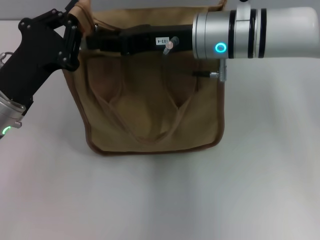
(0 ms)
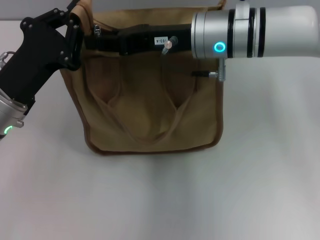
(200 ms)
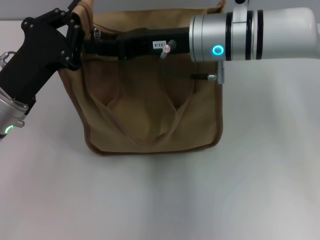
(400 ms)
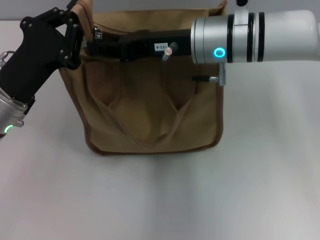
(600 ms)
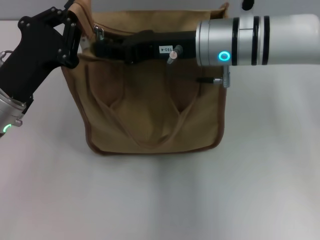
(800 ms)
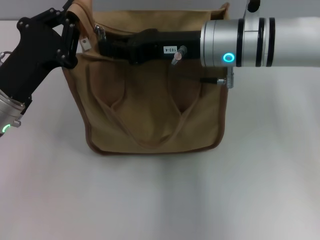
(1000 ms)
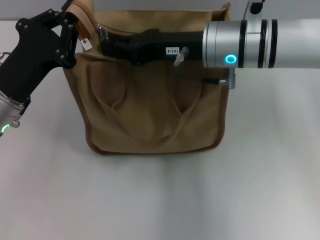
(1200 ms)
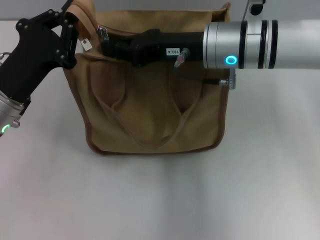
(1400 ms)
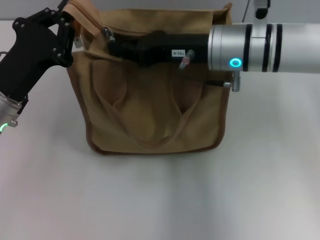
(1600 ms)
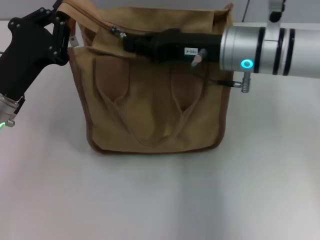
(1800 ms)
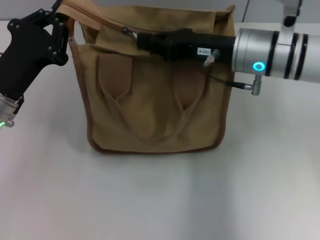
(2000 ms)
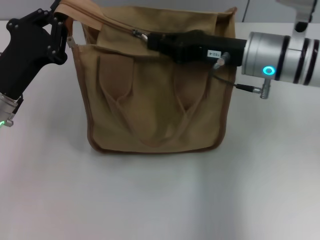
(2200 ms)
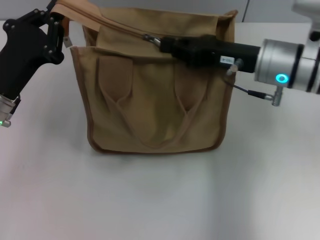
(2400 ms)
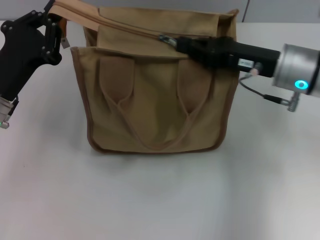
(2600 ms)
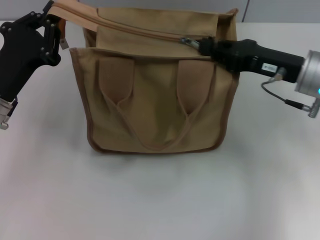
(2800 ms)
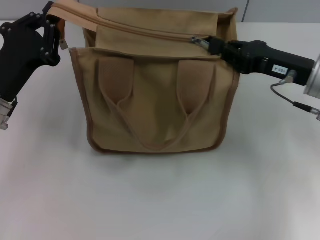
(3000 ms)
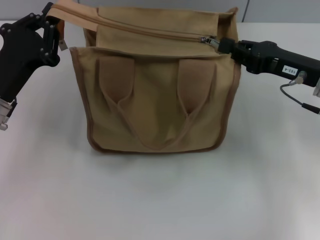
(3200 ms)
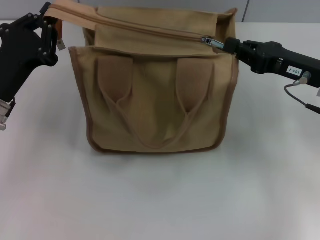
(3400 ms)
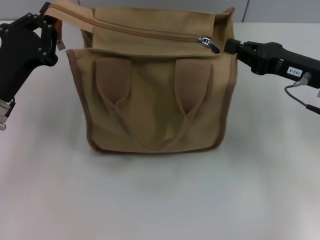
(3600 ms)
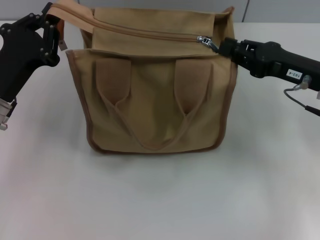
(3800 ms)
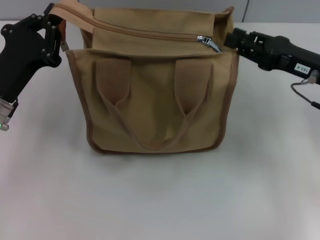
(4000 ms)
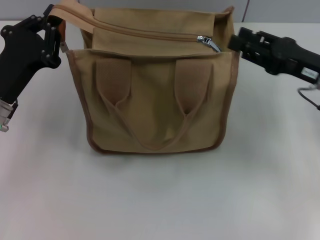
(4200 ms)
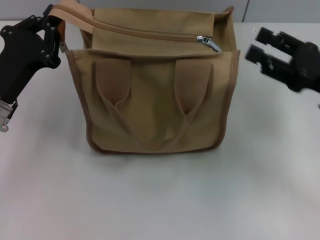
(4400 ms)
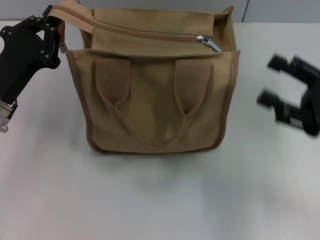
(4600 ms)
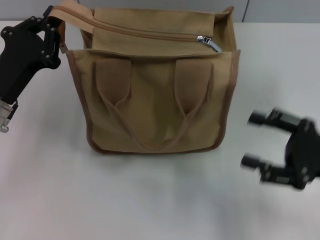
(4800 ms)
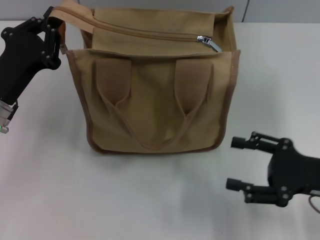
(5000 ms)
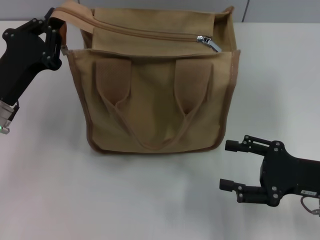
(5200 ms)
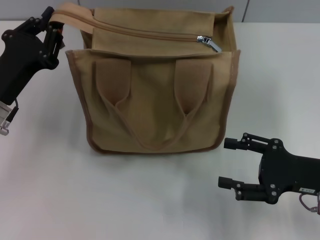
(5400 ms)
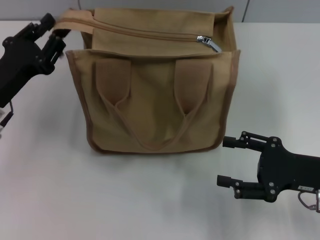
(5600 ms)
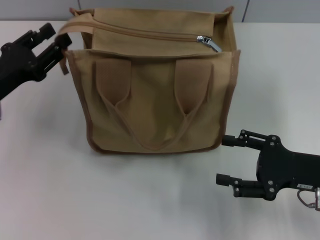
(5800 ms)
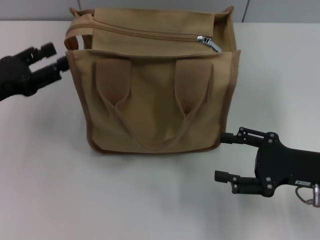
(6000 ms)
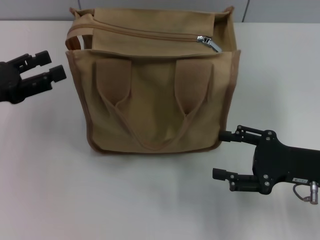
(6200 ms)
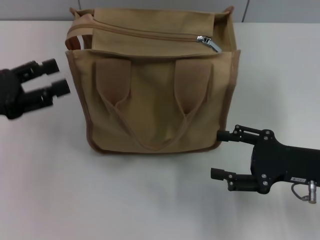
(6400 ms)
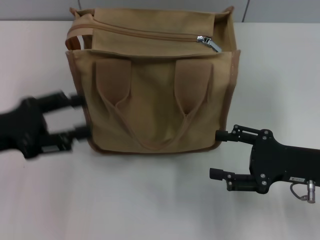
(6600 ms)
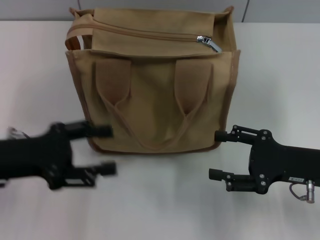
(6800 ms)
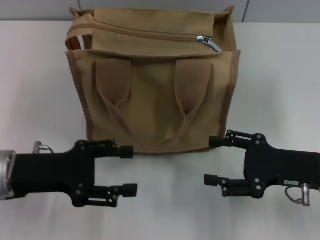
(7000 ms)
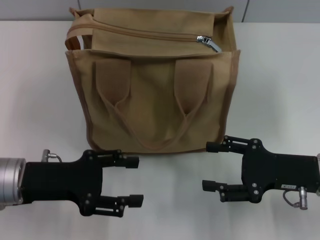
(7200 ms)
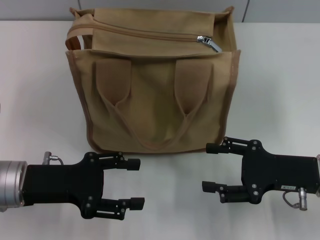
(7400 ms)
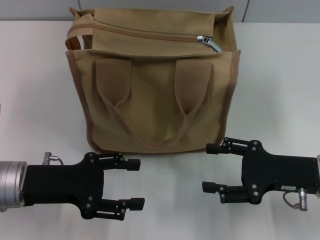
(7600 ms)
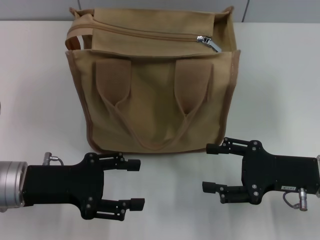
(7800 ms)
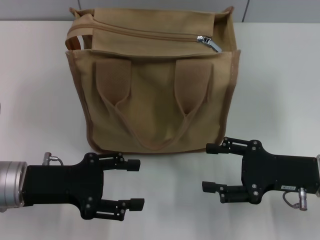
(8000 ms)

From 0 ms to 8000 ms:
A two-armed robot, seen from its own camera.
Step, from 0 ms to 4000 ms: Pull up the zipper with your right hand.
Step, from 4200 ms to 5800 ms: Grab the zipper with your left hand.
From 0 ms to 1600 ms: The right gripper closes.
From 1600 ms to 3200 ms: The right gripper travels to the right by approximately 15 cm.
From 3200 ms to 4800 ms: The right gripper heads backward, covering some 10 cm, and opens up.
From 4800 ms to 6400 ms: The left gripper is displaced to the left by approximately 5 cm, and opens up.
From 6400 ms to 8000 ms: The left gripper heads to the right and downward, covering roughly 10 cm.
